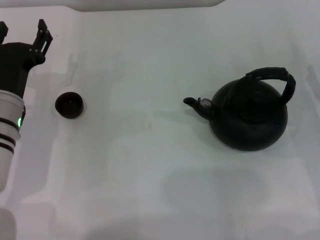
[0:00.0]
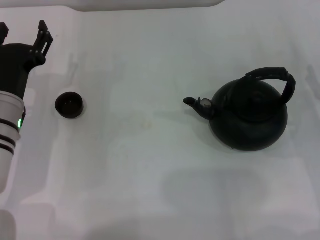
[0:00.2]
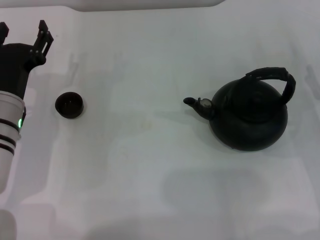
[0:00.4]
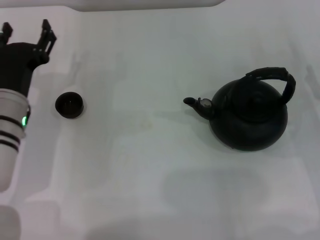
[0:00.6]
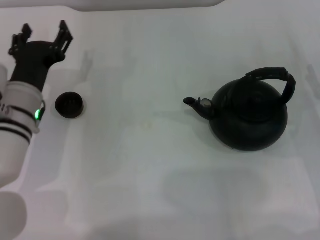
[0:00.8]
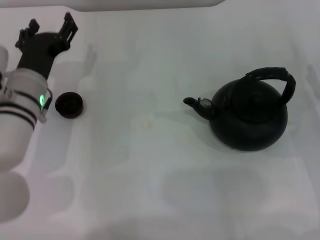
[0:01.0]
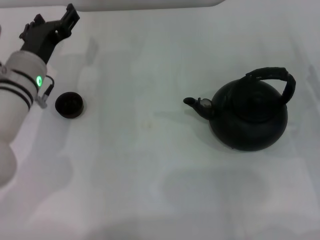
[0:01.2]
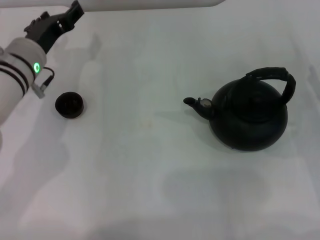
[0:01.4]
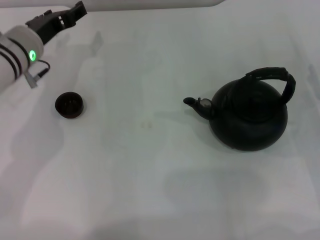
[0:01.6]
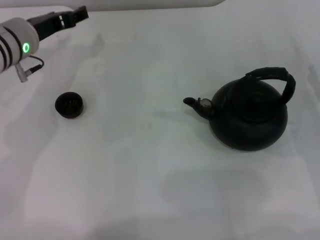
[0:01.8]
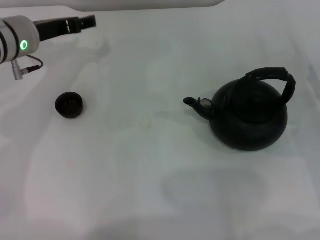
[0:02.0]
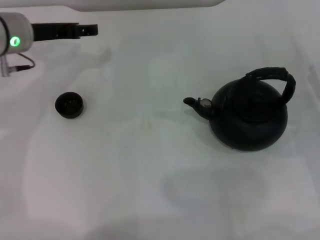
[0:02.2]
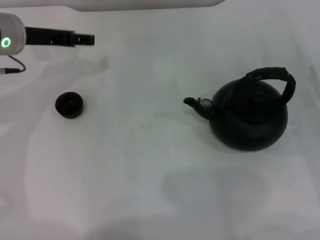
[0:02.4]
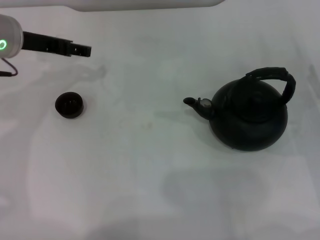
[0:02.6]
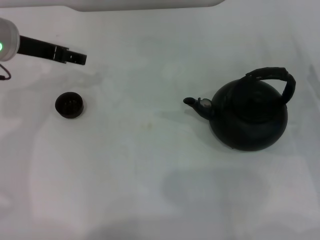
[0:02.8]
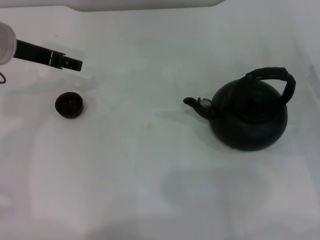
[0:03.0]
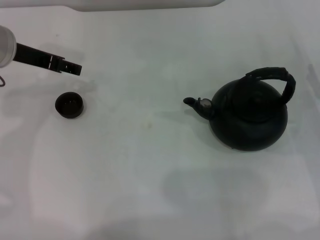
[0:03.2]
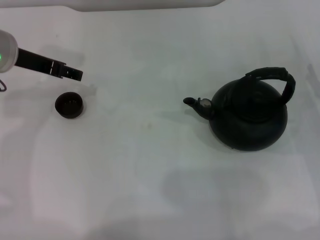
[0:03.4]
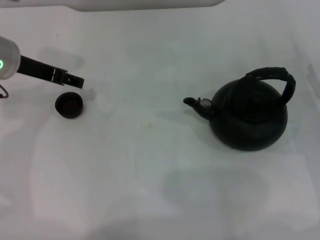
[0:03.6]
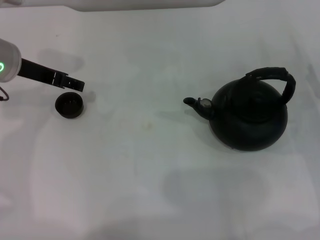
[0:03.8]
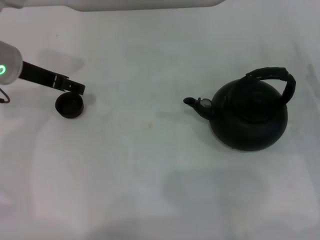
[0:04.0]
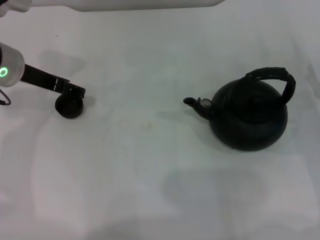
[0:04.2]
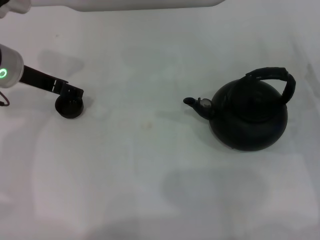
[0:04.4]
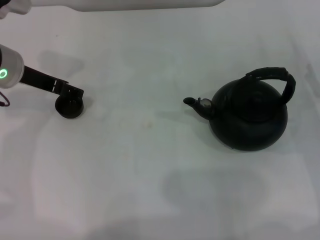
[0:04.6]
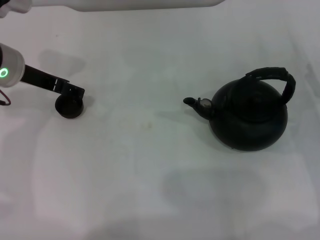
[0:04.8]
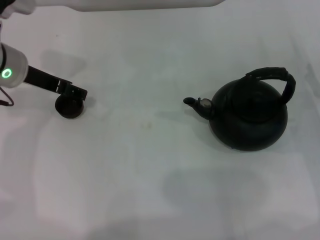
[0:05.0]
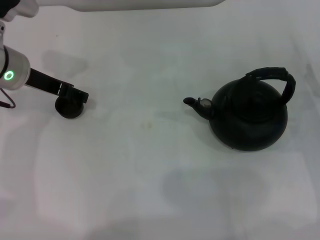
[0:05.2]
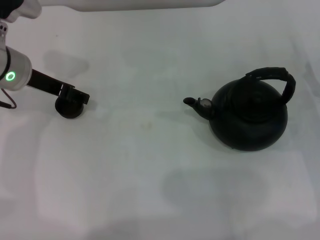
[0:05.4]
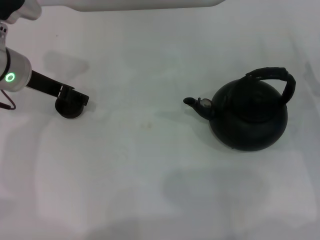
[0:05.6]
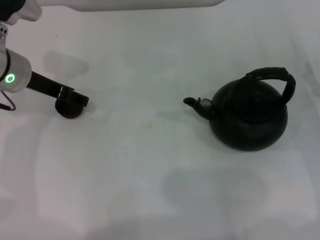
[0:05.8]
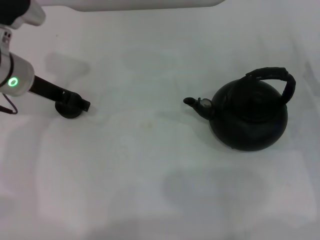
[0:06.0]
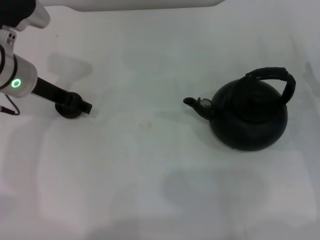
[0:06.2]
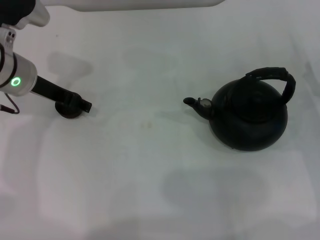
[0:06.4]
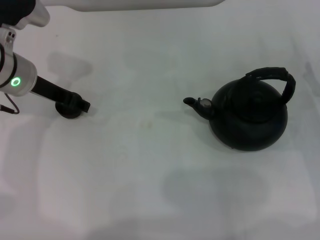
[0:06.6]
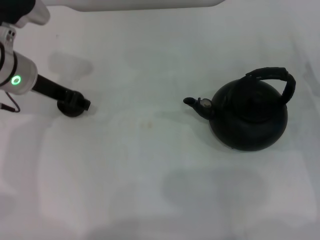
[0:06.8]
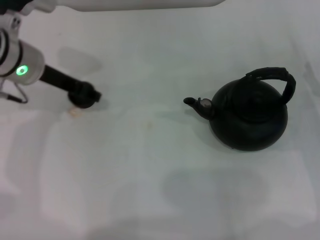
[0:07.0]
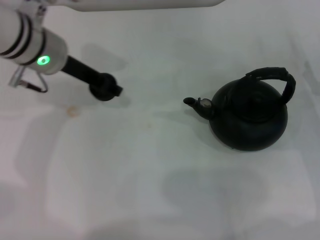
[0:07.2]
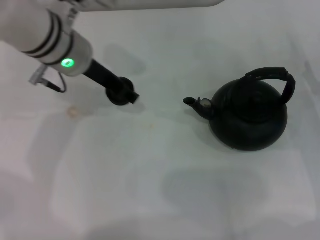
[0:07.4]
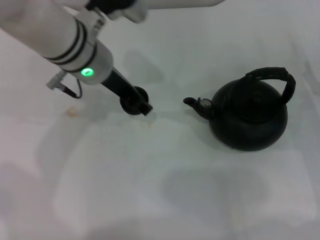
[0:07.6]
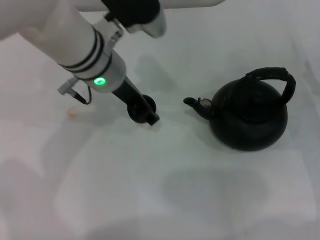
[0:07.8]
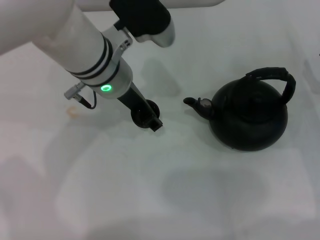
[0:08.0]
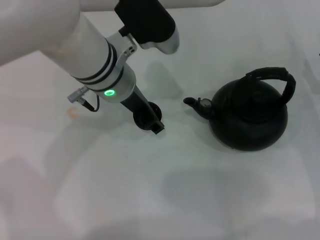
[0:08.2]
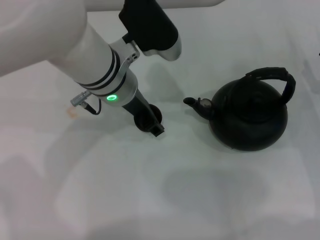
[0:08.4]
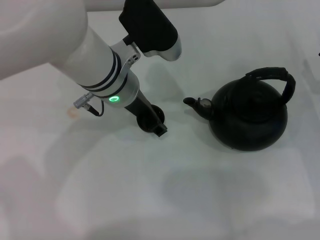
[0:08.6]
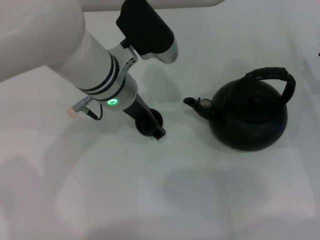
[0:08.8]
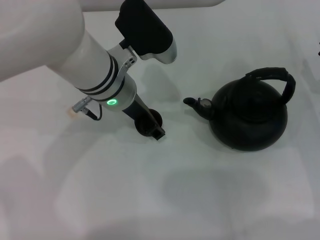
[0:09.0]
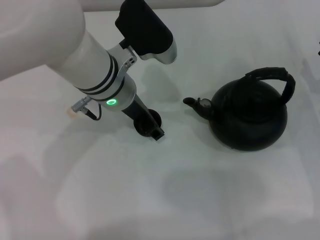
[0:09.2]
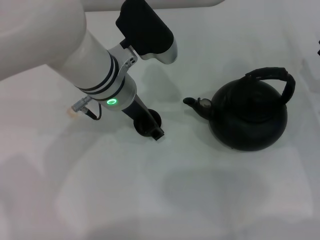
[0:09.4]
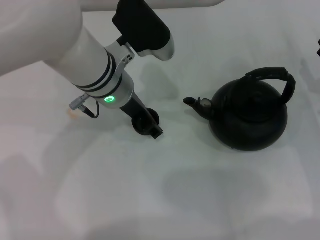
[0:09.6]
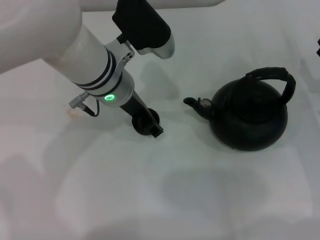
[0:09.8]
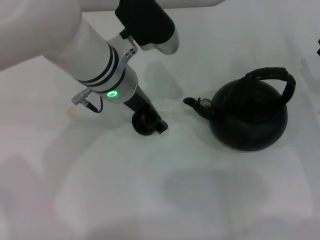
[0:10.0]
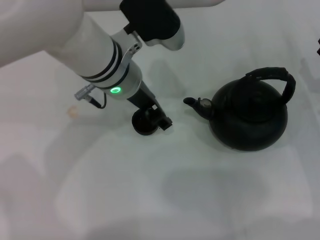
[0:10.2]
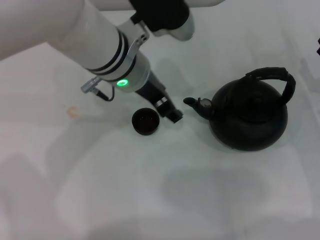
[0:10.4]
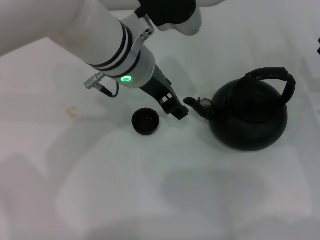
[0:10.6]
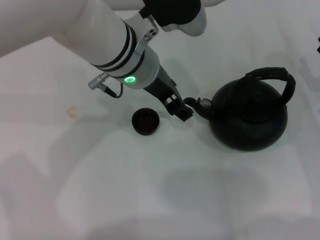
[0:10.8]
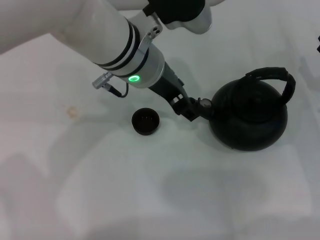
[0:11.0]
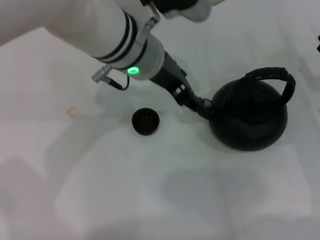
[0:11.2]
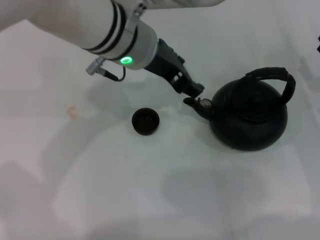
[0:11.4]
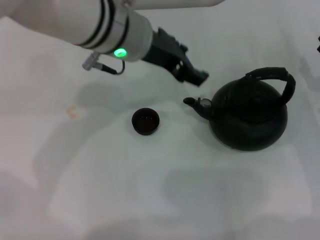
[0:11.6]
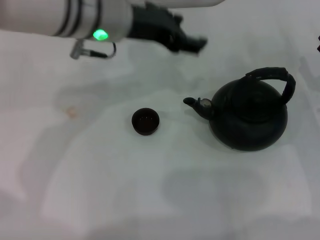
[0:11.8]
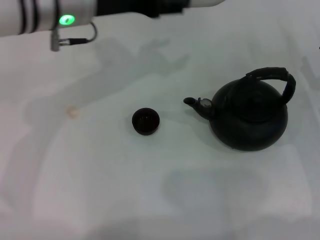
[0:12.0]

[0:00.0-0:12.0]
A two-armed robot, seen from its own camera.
Task of the whole recording: Grasp the handle of the teapot with one hand and pour tea into the teacup.
Step, 0:00.0 to 0:06.8: Pick up the teacup with the left gripper.
Step, 0:07.0 to 0:10.4: Place the teacup in the center of view with the left gripper.
0:00.0 to 0:01.6: The left gripper shifts about 10 cm forward and upward.
0:01.6 to 0:03.0: The left gripper travels upward by some 5 cm.
0:03.0 to 0:06.0: The grippers move only a little.
0:06.0 to 0:07.6: The left gripper goes about 10 cm to the right, and closes.
0:07.6 to 0:10.4: The grippers move only a little.
0:10.4 to 0:12.0: The left gripper travels to the left by approximately 10 cm.

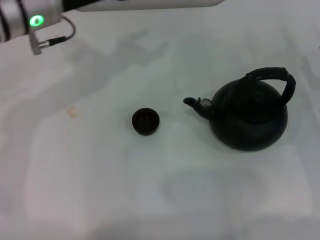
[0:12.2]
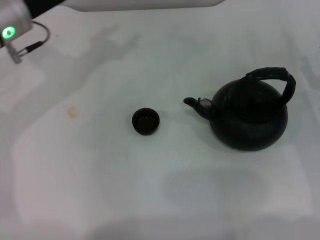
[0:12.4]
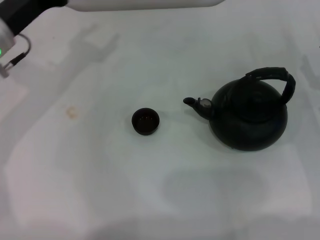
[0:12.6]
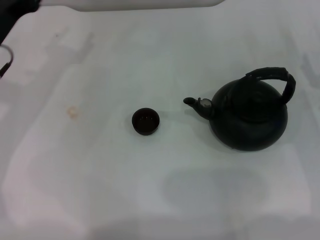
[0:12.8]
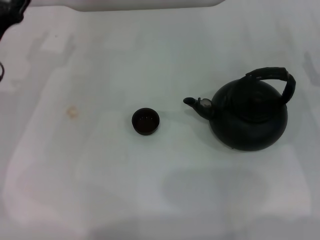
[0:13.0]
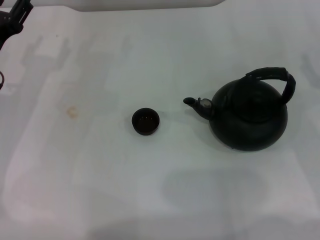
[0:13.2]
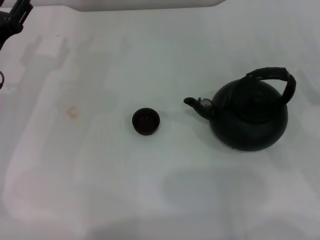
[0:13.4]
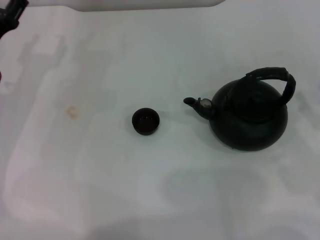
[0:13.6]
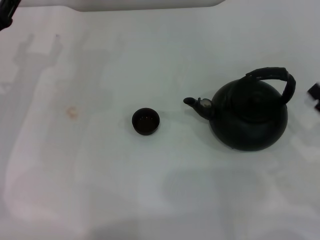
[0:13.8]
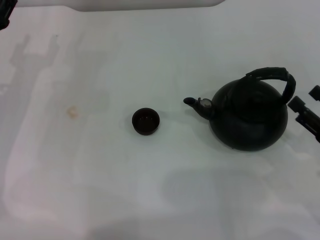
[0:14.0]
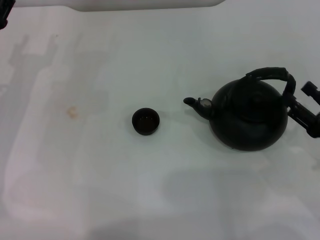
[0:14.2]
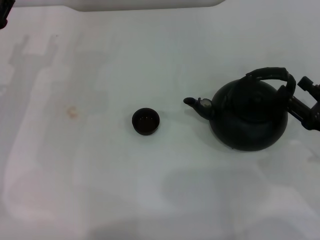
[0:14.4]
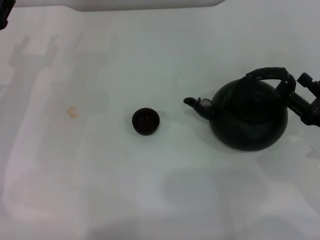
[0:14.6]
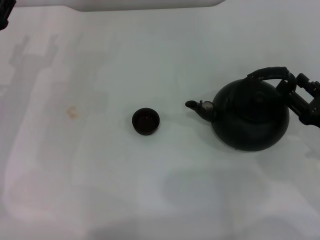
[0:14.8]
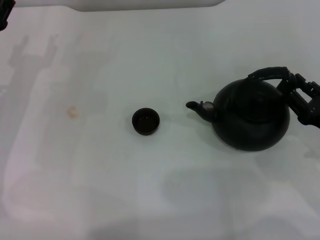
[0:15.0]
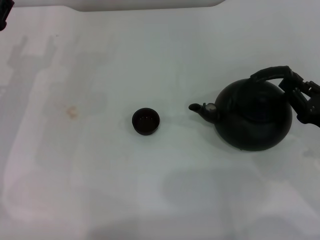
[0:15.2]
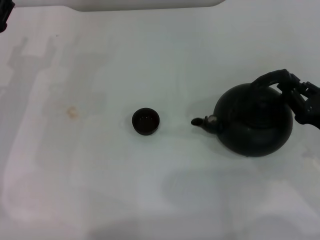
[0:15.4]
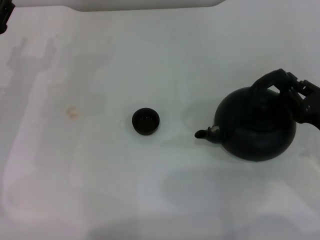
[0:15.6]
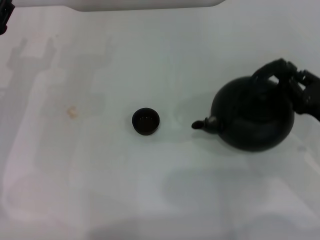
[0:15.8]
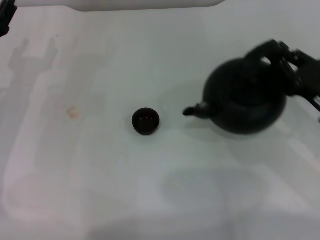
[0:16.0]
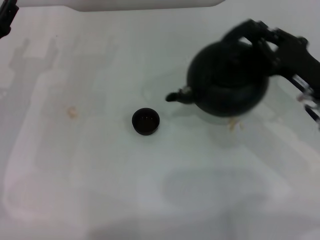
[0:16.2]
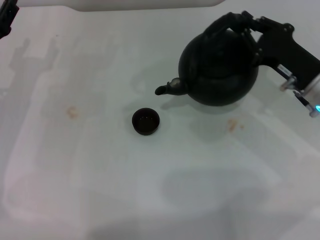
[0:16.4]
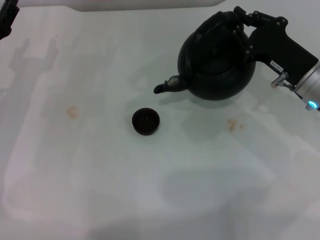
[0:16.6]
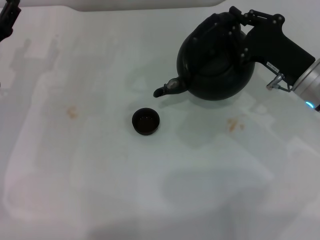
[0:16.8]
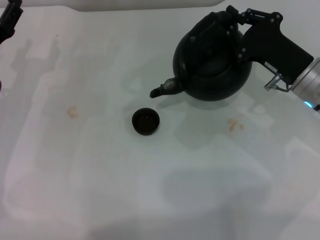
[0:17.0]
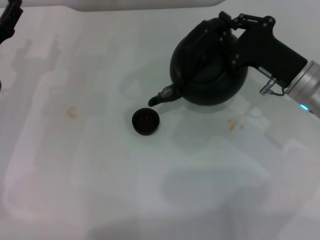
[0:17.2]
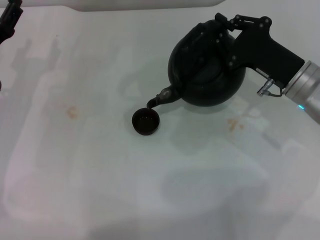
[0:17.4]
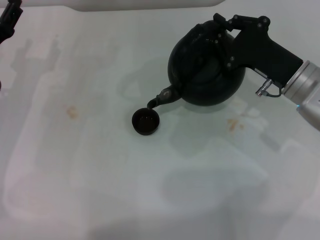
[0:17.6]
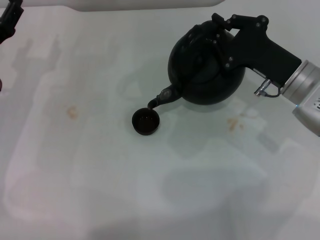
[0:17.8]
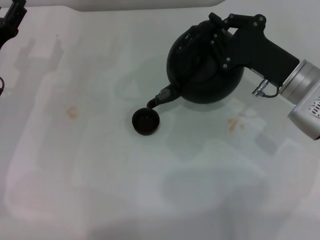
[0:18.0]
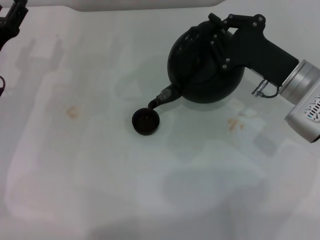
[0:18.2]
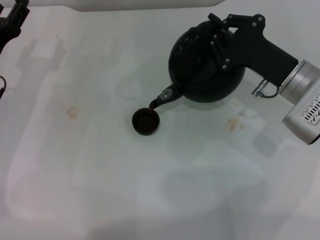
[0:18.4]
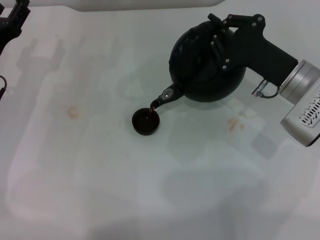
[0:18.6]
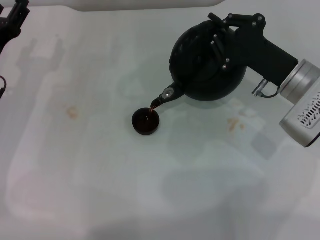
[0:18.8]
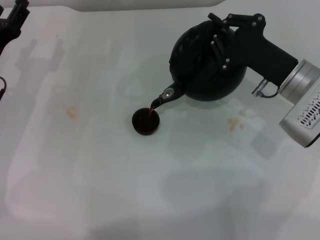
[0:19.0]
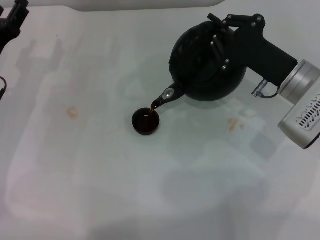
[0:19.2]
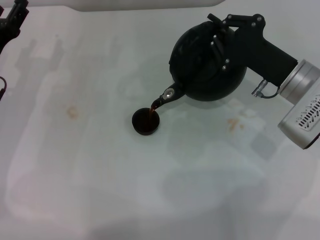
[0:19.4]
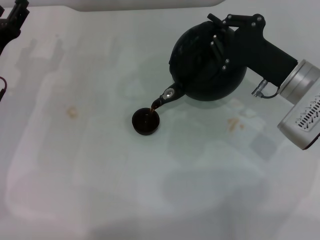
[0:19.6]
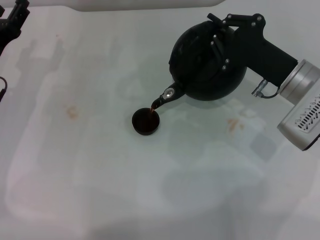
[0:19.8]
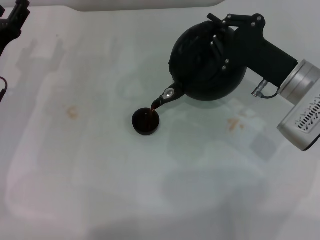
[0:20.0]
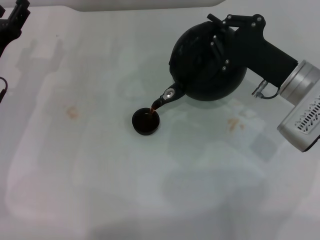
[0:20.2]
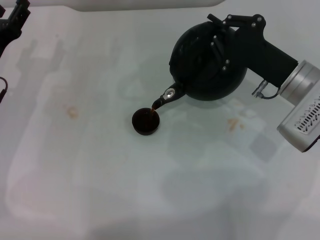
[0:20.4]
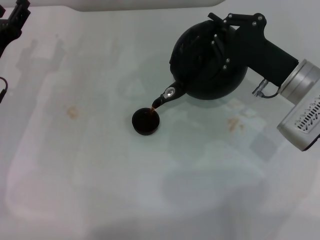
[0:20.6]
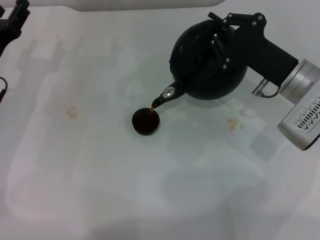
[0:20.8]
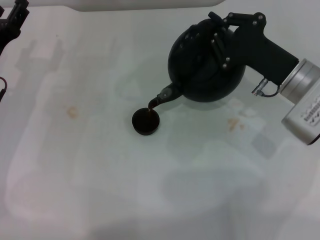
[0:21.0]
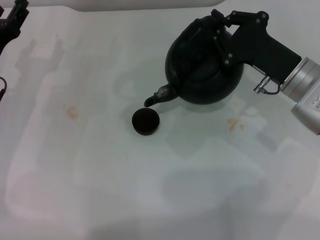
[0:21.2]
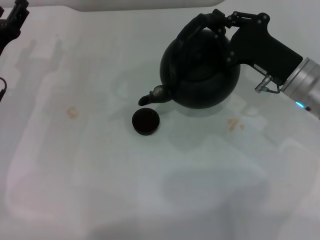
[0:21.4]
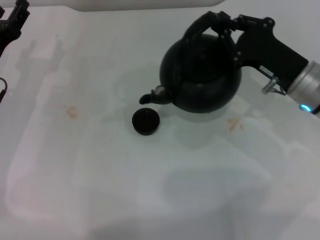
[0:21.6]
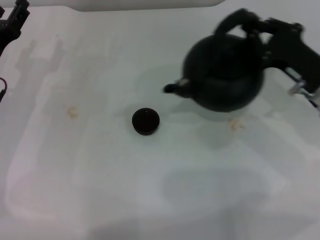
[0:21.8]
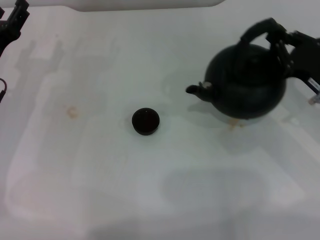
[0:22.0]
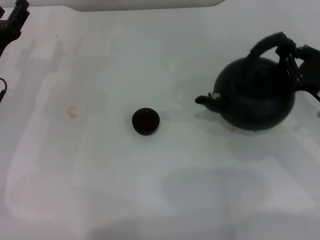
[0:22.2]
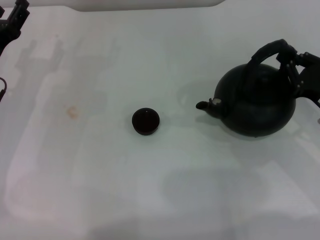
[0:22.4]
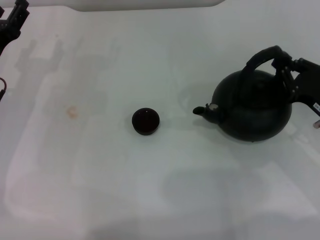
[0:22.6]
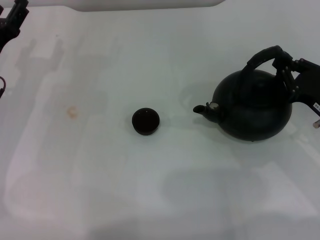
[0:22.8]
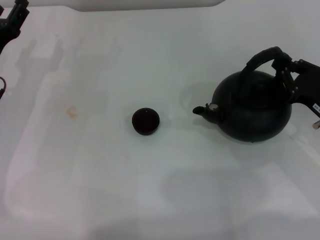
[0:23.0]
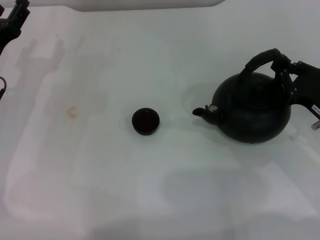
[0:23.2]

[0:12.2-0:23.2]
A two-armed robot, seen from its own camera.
Task of the whole recording: Grasp the handle of the teapot with one hand and pour tea into the teacup.
Step, 0:12.2 to 0:15.8: Pick up the teapot with the right gripper.
Step, 0:16.0 to 0:21.6: Pour tea into the teacup with the right gripper.
0:12.2 to 0:13.8: The left gripper travels downward and to the left by about 15 cm.
0:13.8 to 0:15.4: The right gripper closes.
0:15.4 to 0:17.0: The right gripper shifts roughly 10 cm forward and to the left.
0:17.0 to 0:18.4: There are only small adjustments of the grippers.
0:18.4 to 0:20.0: The grippers make only small movements.
0:21.6 to 0:23.2: The right gripper shifts roughly 10 cm to the right and backward.
